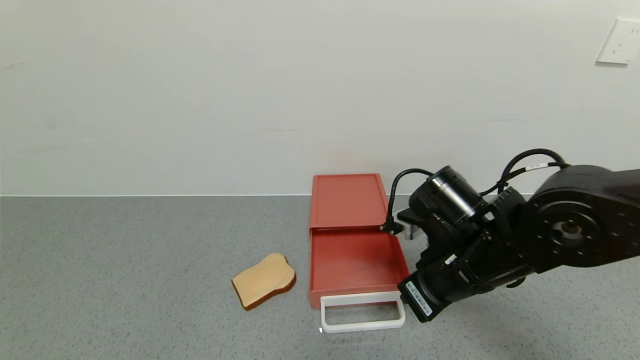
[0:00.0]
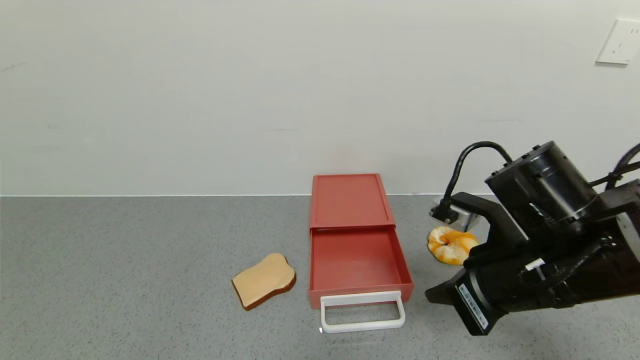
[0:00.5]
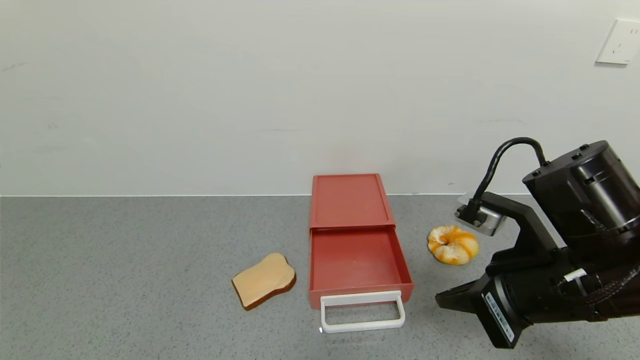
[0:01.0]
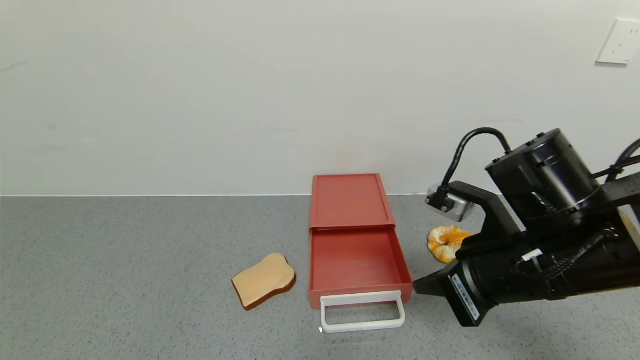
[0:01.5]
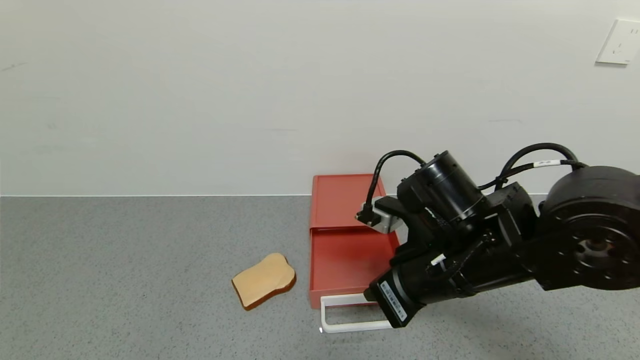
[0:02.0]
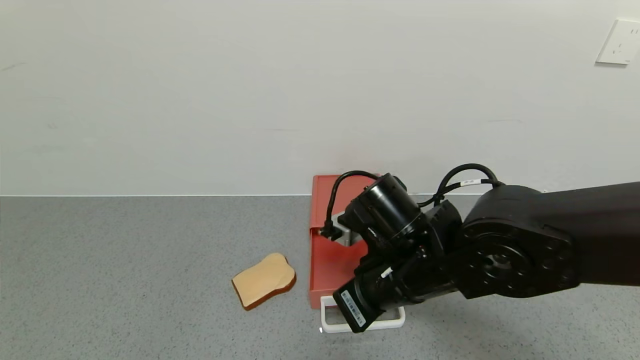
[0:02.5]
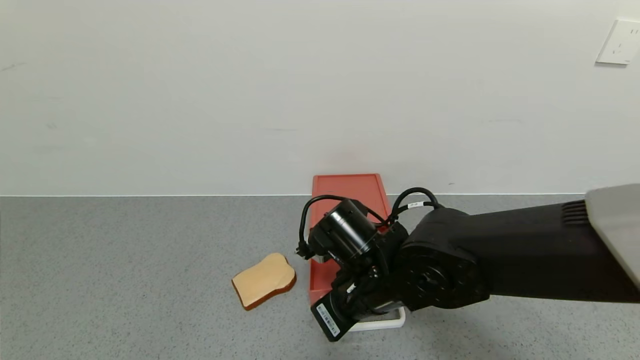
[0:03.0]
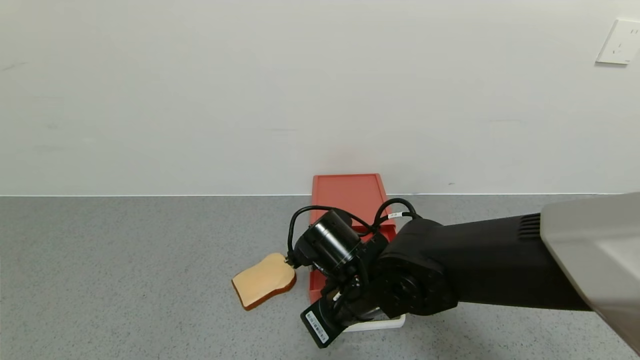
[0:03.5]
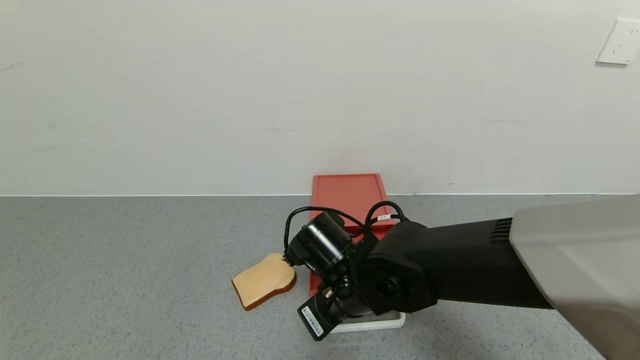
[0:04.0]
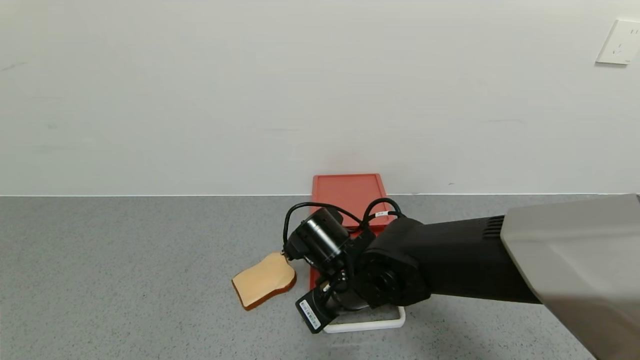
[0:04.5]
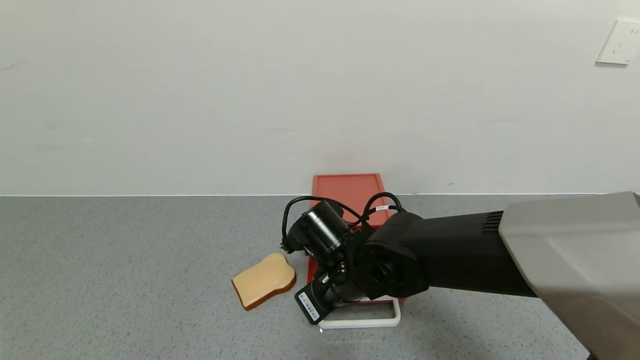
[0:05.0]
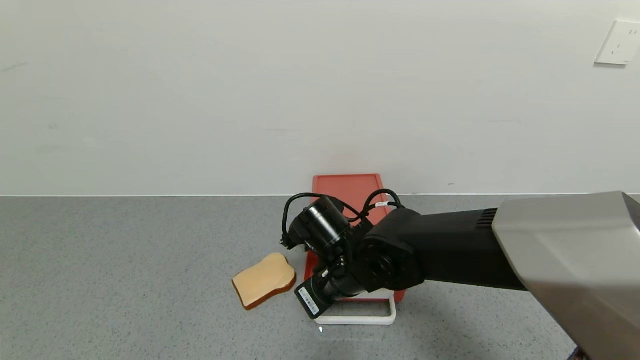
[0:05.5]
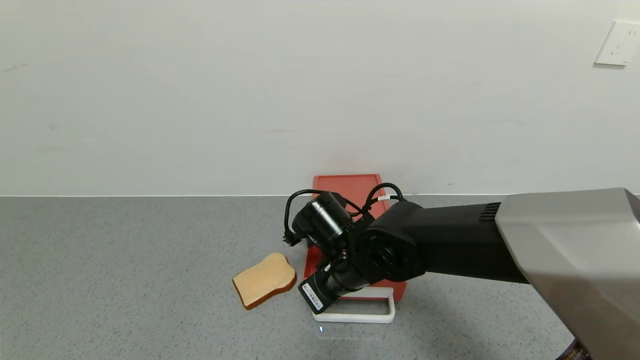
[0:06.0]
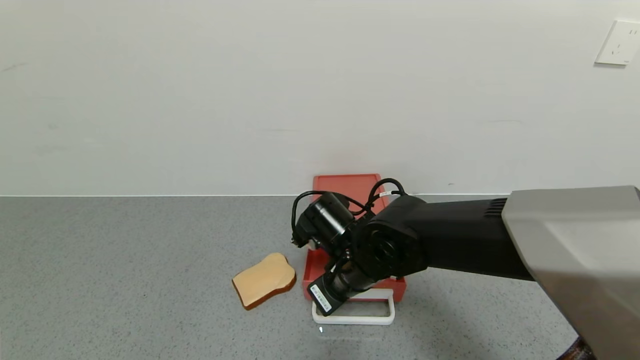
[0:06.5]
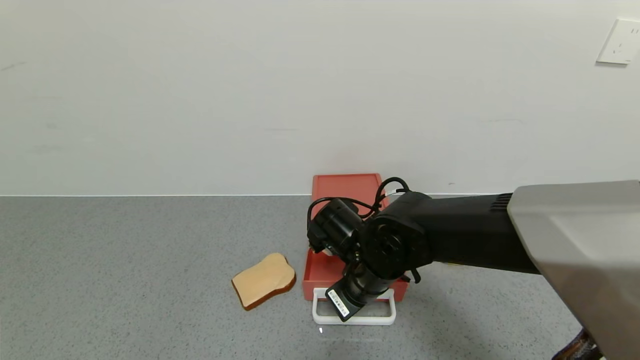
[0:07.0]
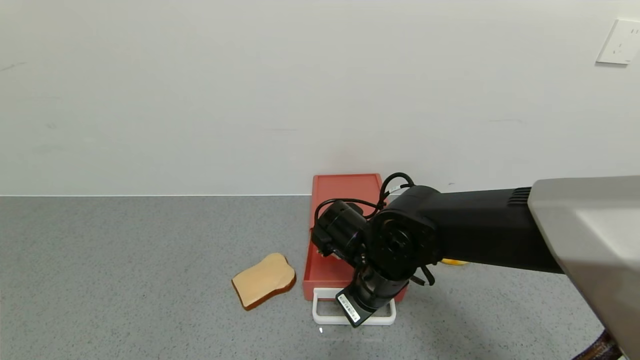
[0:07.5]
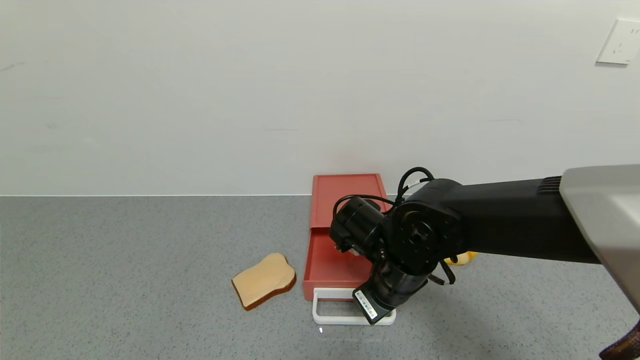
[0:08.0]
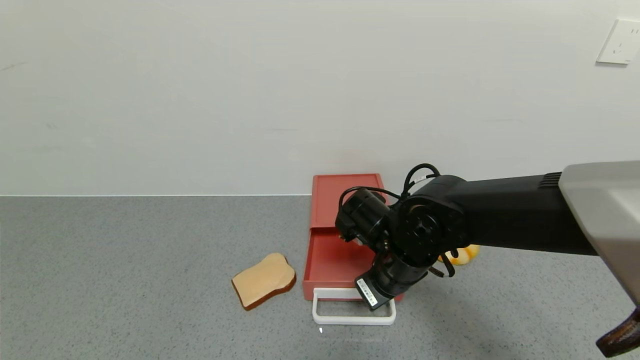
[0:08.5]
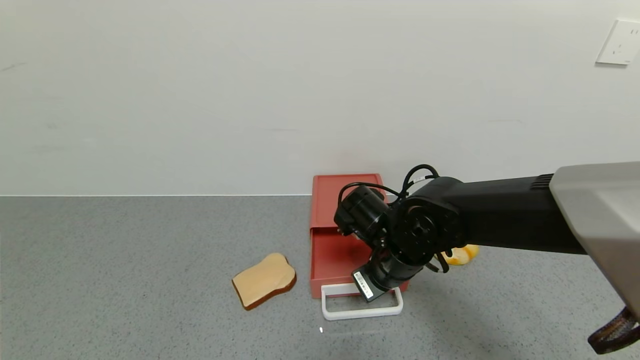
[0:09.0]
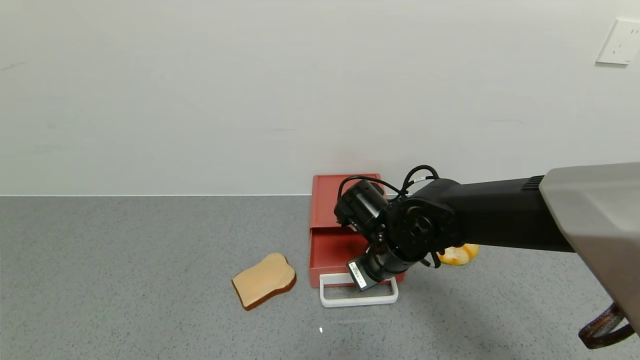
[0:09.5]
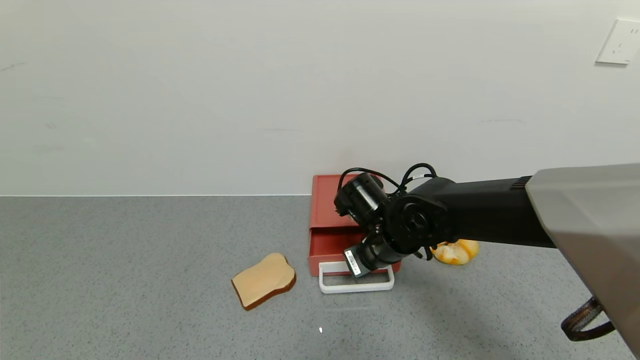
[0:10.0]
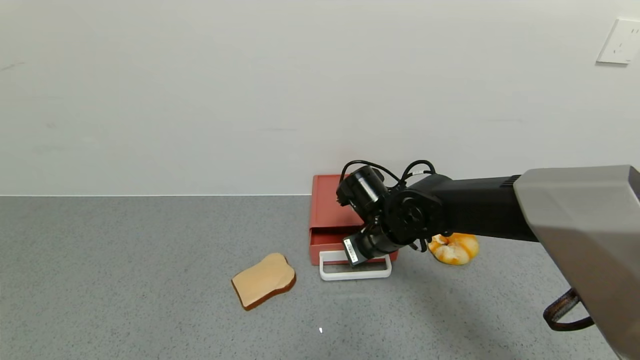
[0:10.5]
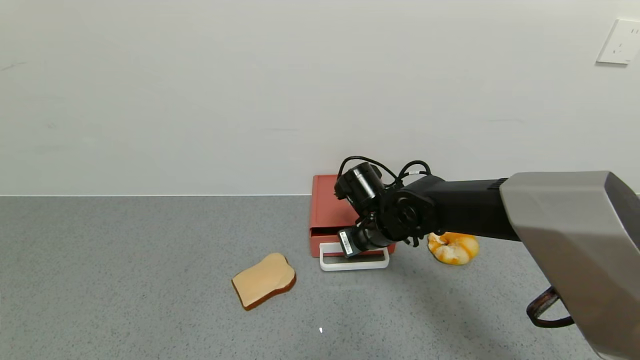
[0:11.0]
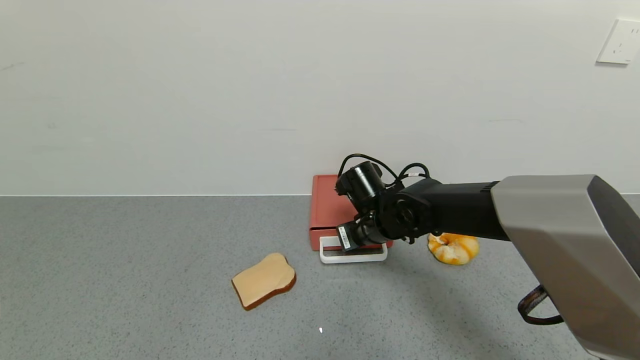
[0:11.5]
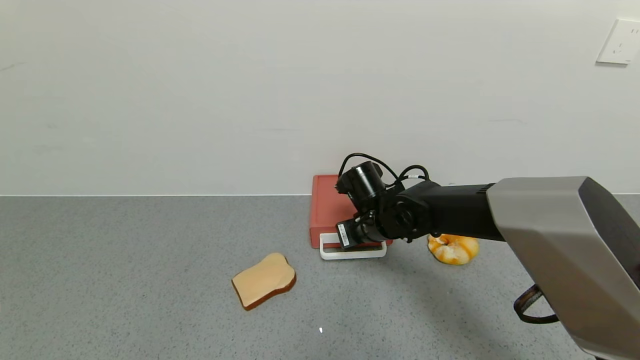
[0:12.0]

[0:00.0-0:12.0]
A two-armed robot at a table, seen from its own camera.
Task of the whole recording: use the gripper to open the drawer and close the red drawer.
0:02.0 to 0:04.0: The right gripper is displaced to the left and downward by roughly 15 cm.
0:04.0 to 0:06.0: The grippers stay close to where they were, moving slightly.
0:06.0 to 0:08.0: The right gripper travels to the right by roughly 5 cm.
0:08.0 to 0:10.0: The right gripper goes approximately 5 cm forward.
0:10.0 to 0:12.0: The right gripper heads forward, covering some 5 cm.

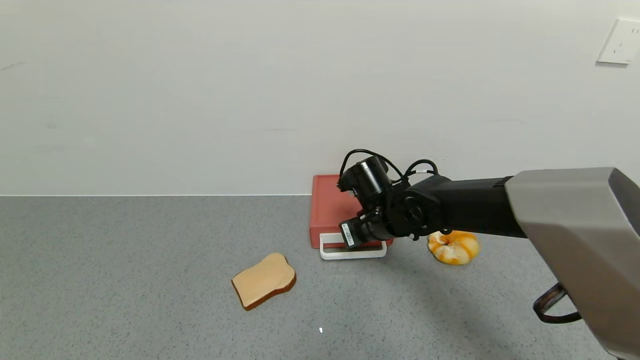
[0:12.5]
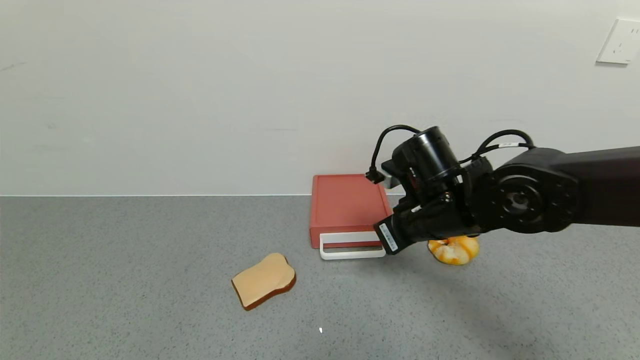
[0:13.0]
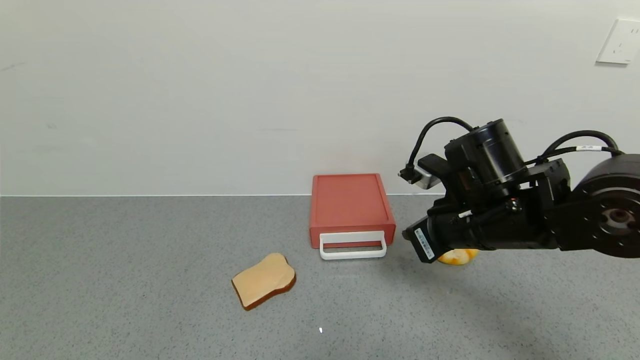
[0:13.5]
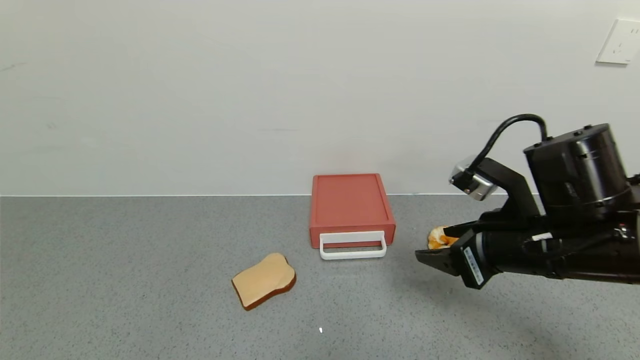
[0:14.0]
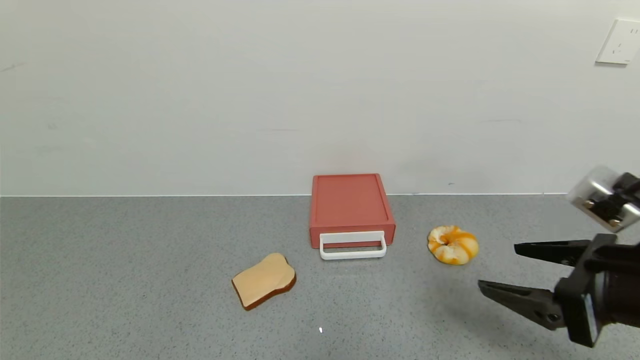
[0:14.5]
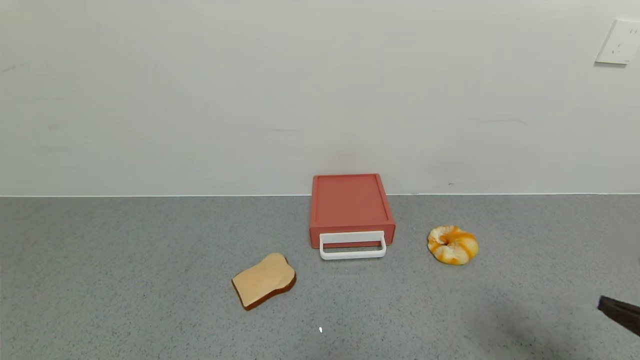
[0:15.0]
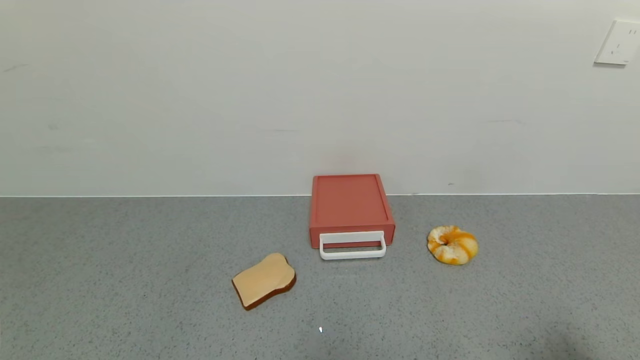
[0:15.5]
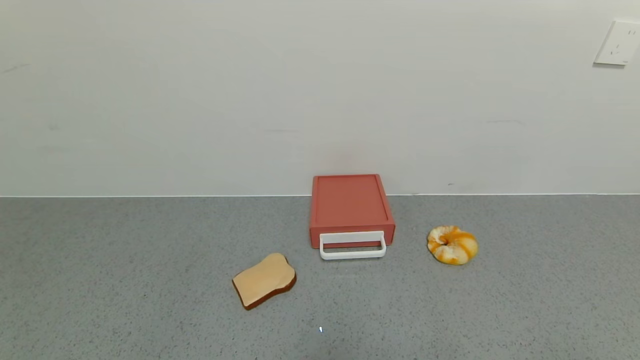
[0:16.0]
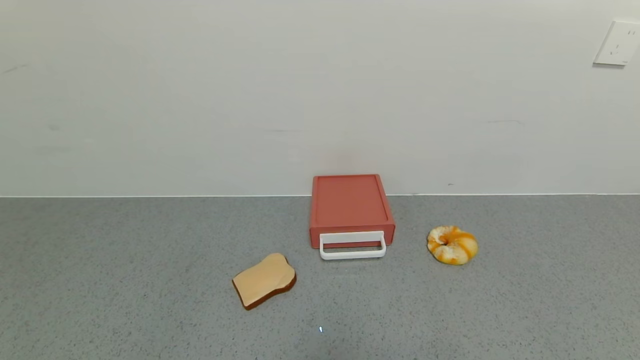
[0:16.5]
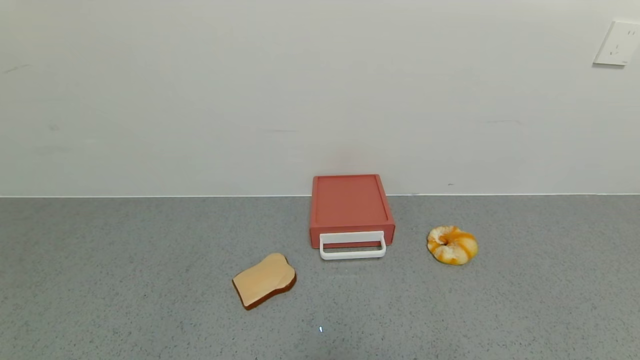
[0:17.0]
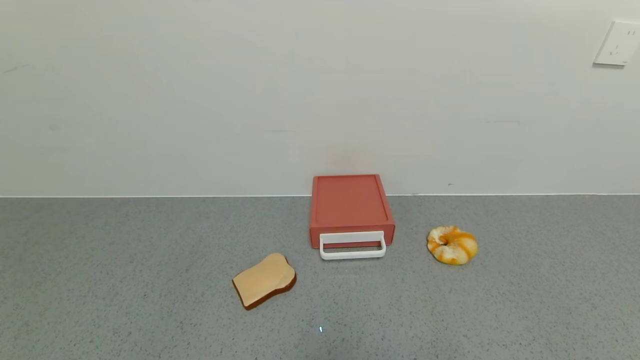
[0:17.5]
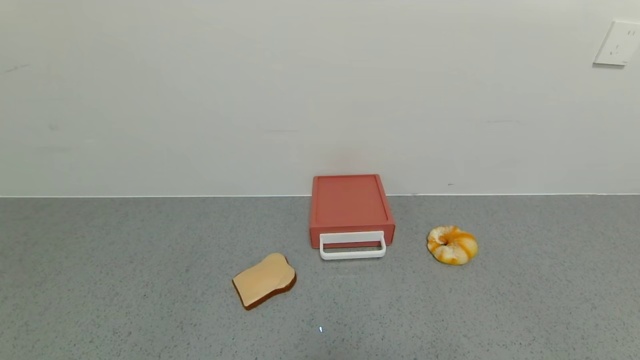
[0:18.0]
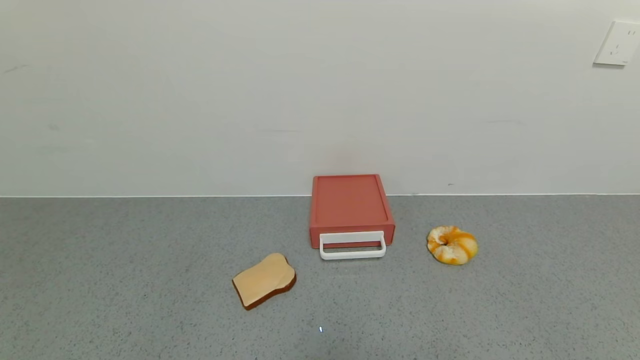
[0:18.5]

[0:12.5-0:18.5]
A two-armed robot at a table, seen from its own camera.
Task of the whole recording: use the gripper to open the drawer and close the red drawer.
0:12.5 to 0:14.5: The right gripper is displaced backward, to the right and upward by roughly 30 cm, and opens its fingers.
0:14.5 to 0:16.5: The right gripper goes approximately 25 cm backward and to the right.
